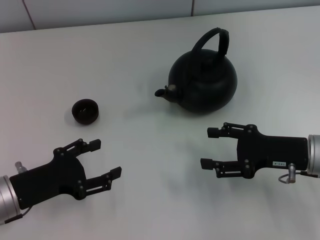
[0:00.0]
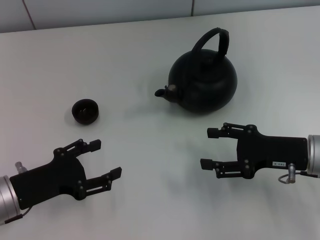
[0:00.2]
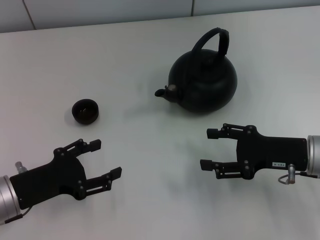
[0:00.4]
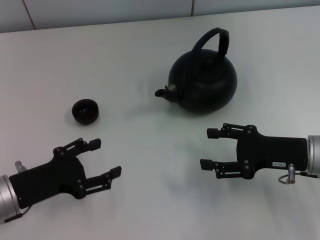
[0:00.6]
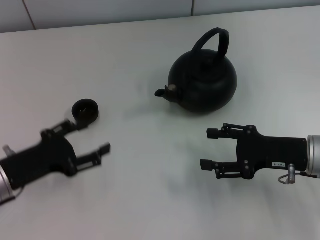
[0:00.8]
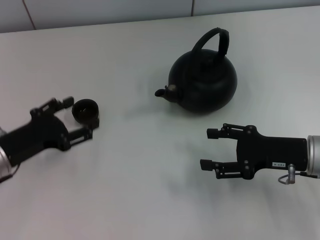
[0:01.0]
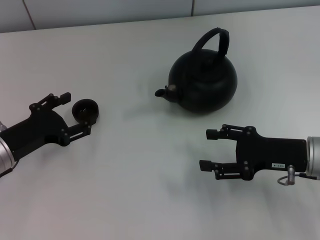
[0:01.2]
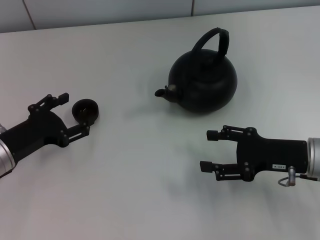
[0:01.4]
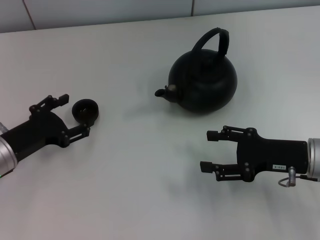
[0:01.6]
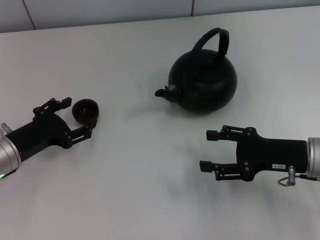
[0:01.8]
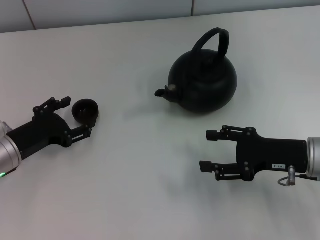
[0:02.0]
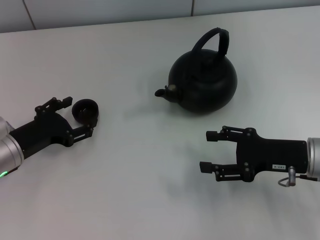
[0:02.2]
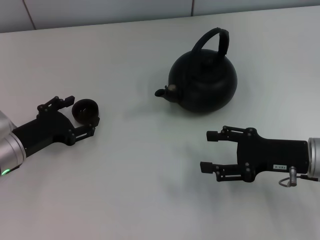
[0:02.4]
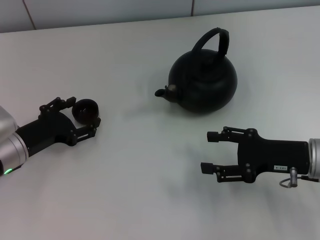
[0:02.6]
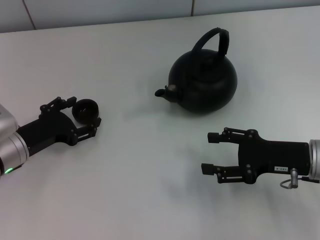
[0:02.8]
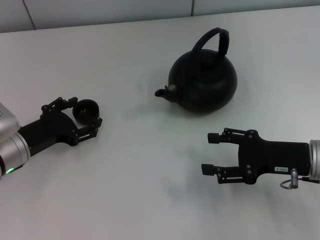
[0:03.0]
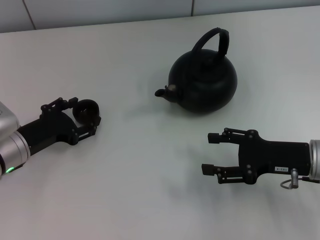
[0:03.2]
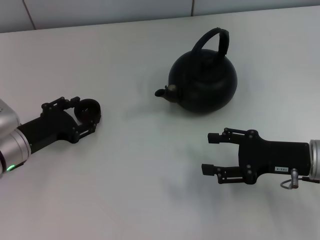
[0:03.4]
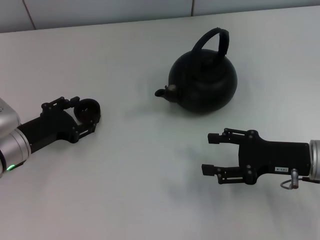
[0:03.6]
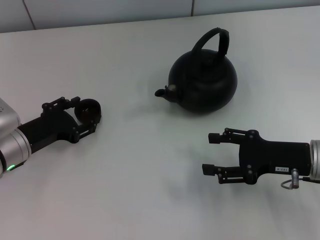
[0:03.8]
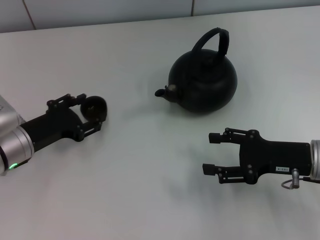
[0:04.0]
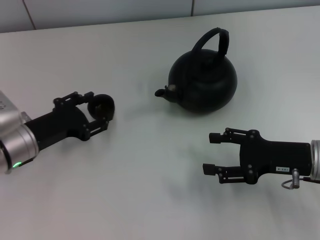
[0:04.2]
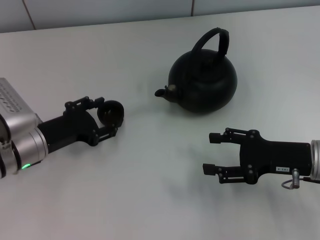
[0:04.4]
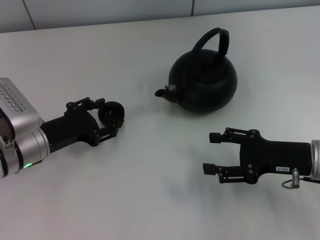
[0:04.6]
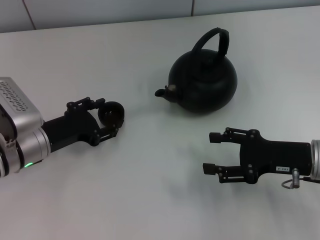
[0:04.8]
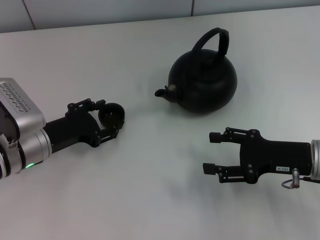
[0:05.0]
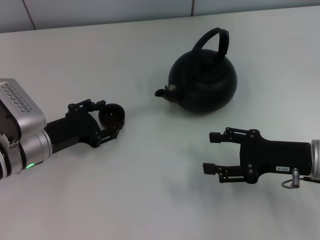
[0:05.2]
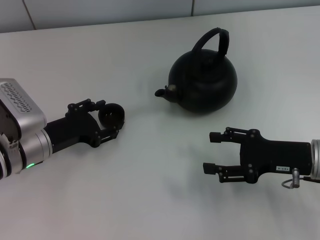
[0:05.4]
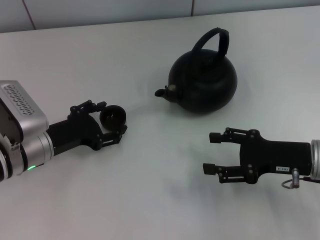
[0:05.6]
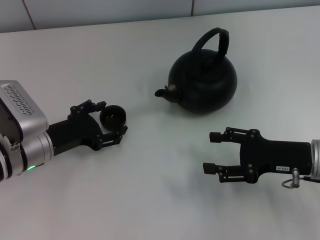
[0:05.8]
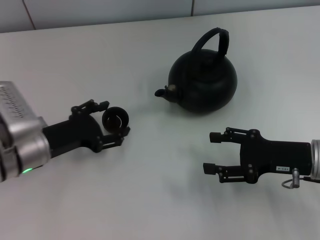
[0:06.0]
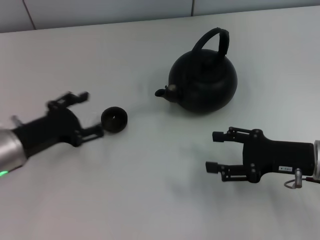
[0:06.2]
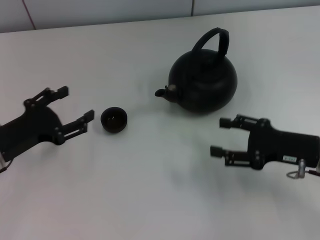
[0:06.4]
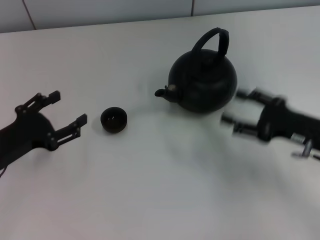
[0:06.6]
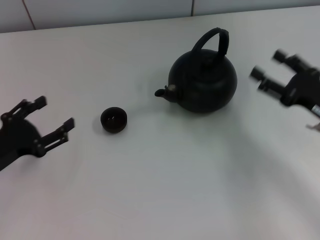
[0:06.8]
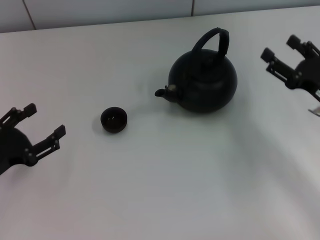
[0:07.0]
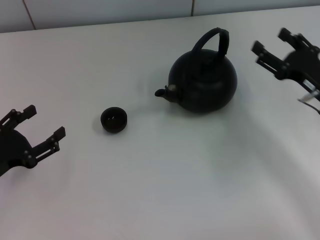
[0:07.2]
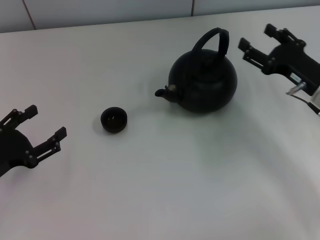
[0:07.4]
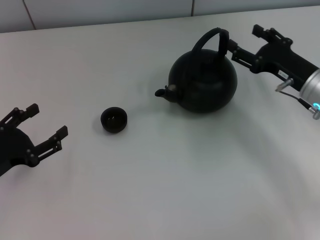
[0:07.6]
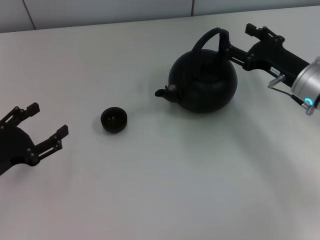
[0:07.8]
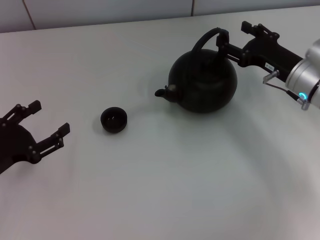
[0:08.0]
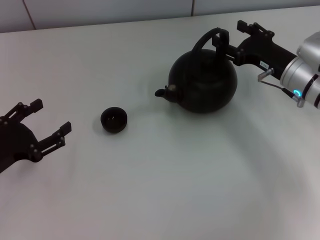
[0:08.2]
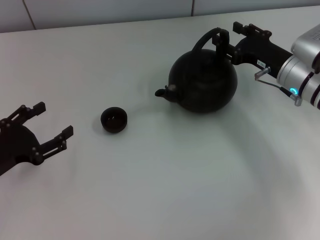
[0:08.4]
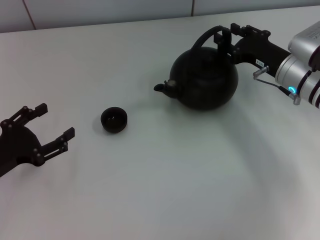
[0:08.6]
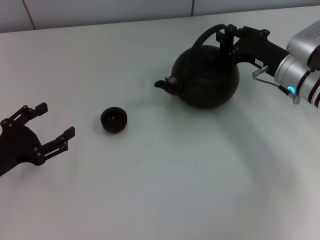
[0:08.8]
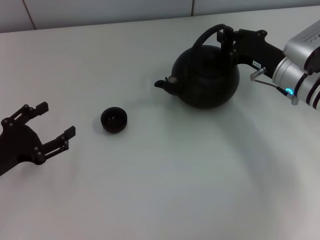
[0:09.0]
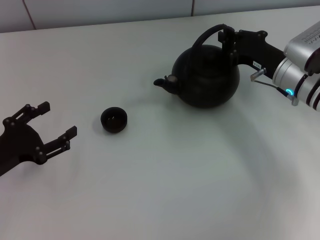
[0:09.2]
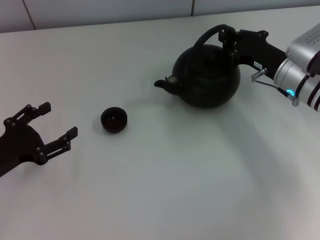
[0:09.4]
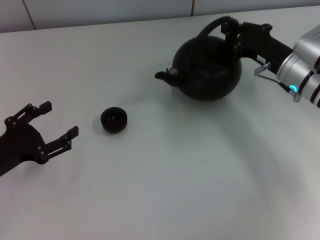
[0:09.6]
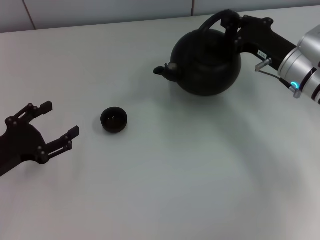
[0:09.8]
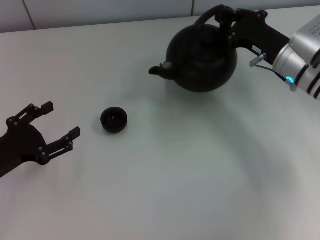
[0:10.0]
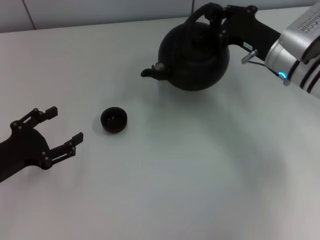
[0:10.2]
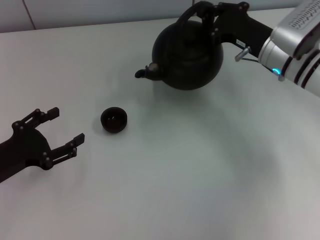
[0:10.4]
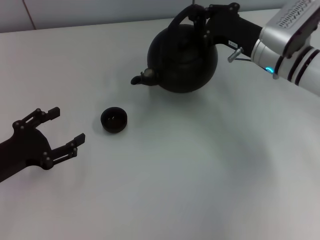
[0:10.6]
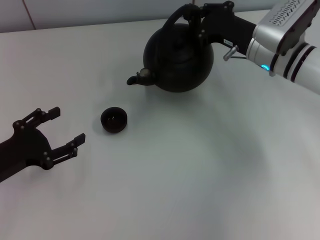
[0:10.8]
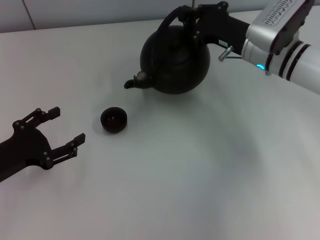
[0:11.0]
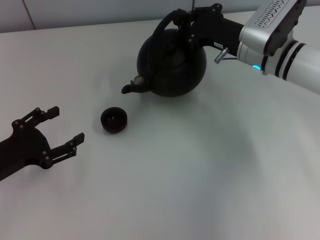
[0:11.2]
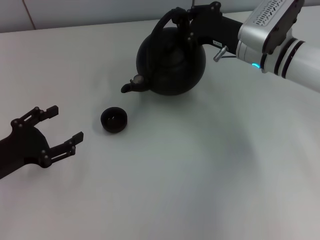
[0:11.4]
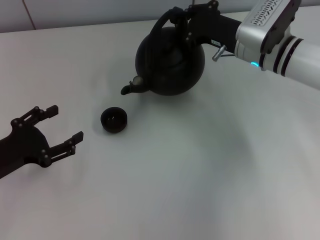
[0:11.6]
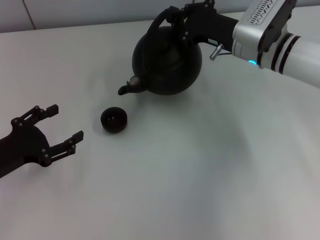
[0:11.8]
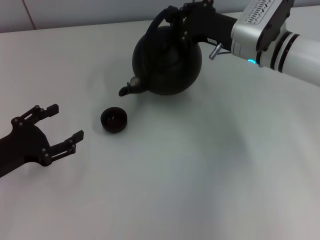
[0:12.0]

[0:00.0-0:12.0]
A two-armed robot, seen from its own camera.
Task of the whole recording: Grasp the handle of the teapot with one hand and pour tea into the teacup.
Step, 0:00.0 to 0:04.0: Pick up the teacup with the left gripper.
Step, 0:04.2 to 0:06.2: Place the teacup in the center of view with the left gripper.
Step, 0:06.6 to 0:10.0: Pick up the teapot with the right gripper.
0:00.0 to 0:01.6: The left gripper shifts approximately 5 cm forward.
0:01.6 to 0:03.0: There are only small adjustments of the grippers.
0:03.0 to 0:04.4: The left gripper closes up.
0:04.4 to 0:06.0: The left gripper opens up.
0:06.0 to 0:07.6: The right gripper travels forward by some 10 cm. Meanwhile the left gripper moves to the left and backward, roughly 10 cm.
0:07.6 to 0:09.0: The right gripper closes up.
0:09.0 to 0:10.4: The right gripper closes.
0:10.4 to 0:12.0: There are only small adjustments of the grippers.

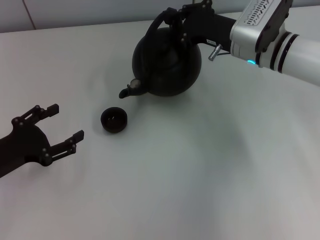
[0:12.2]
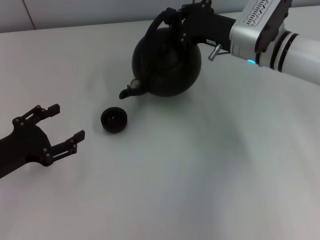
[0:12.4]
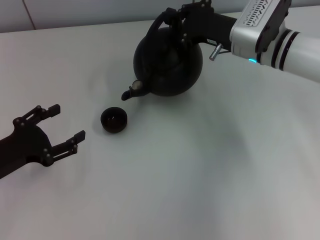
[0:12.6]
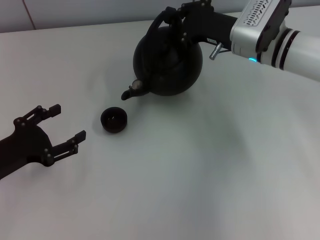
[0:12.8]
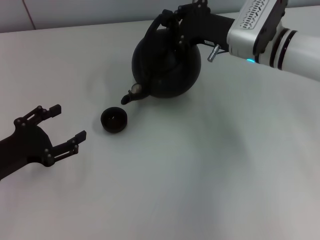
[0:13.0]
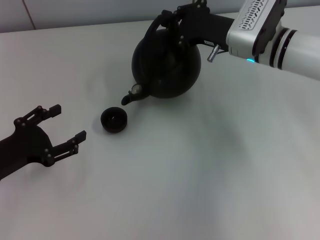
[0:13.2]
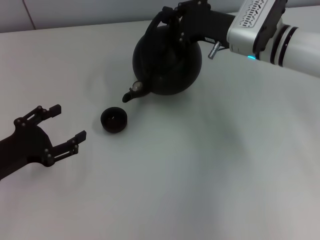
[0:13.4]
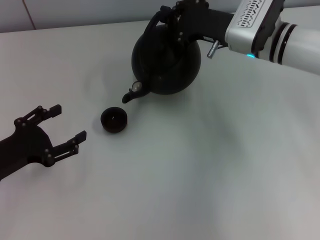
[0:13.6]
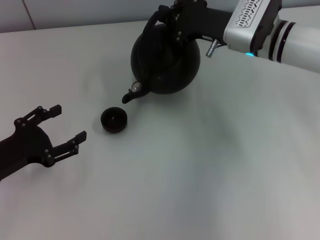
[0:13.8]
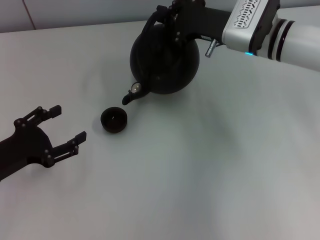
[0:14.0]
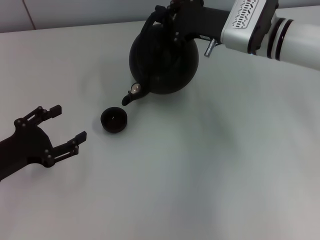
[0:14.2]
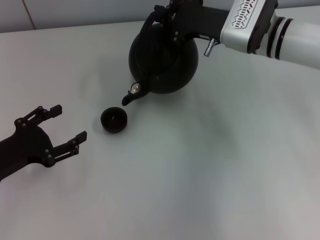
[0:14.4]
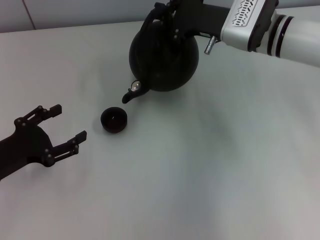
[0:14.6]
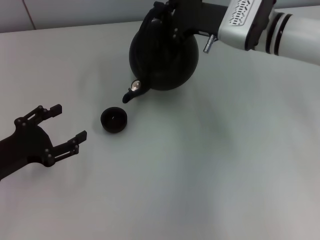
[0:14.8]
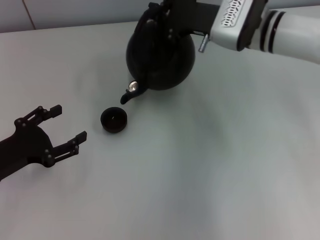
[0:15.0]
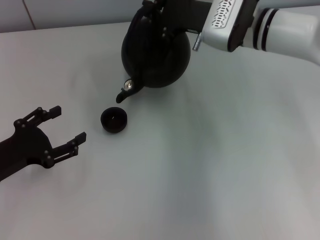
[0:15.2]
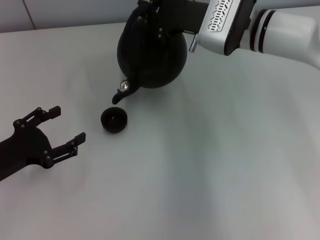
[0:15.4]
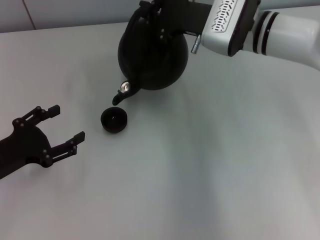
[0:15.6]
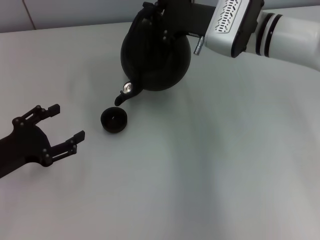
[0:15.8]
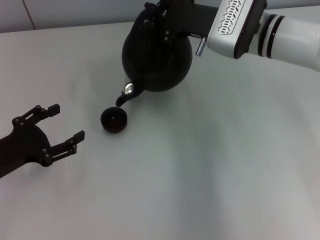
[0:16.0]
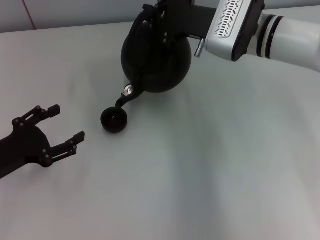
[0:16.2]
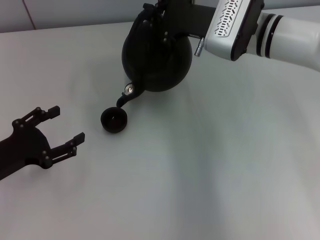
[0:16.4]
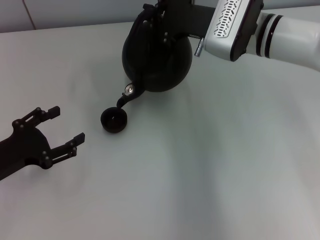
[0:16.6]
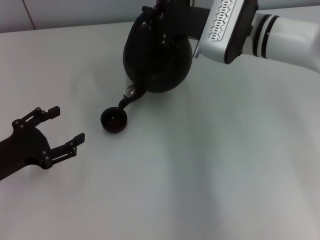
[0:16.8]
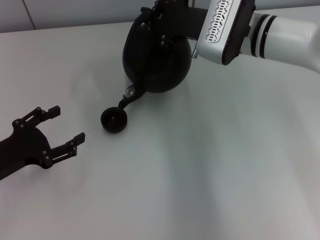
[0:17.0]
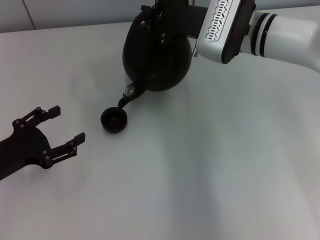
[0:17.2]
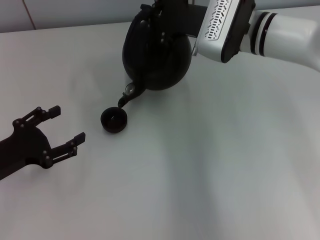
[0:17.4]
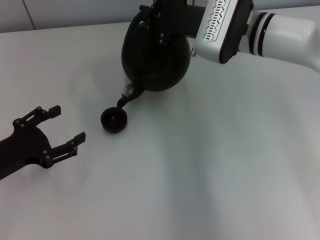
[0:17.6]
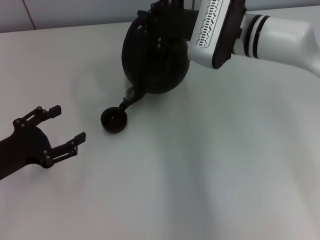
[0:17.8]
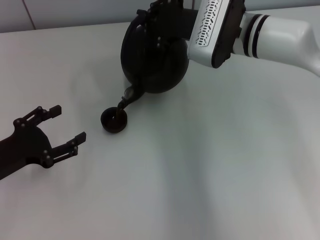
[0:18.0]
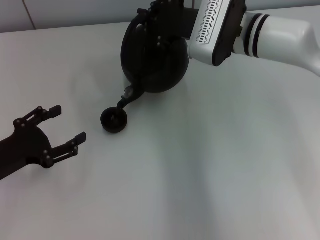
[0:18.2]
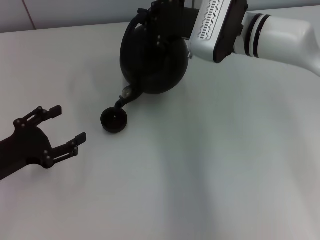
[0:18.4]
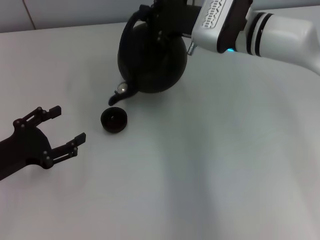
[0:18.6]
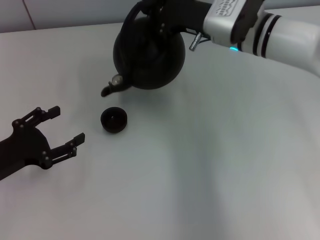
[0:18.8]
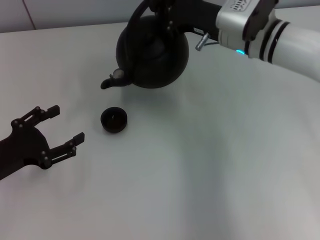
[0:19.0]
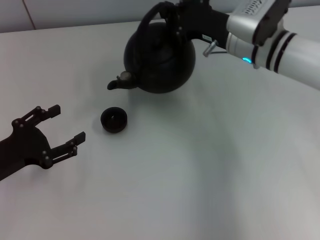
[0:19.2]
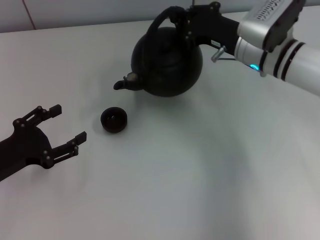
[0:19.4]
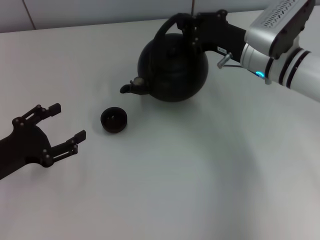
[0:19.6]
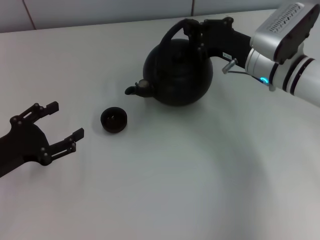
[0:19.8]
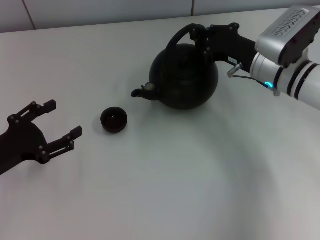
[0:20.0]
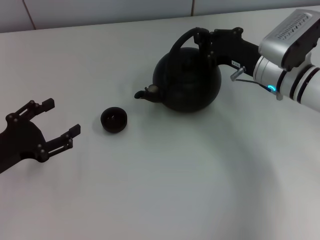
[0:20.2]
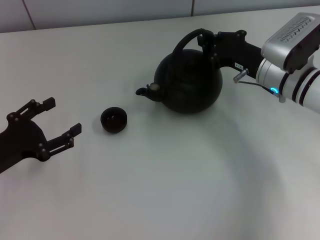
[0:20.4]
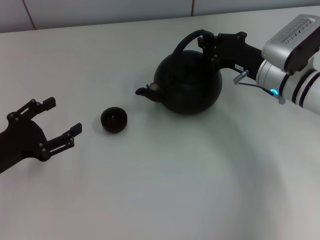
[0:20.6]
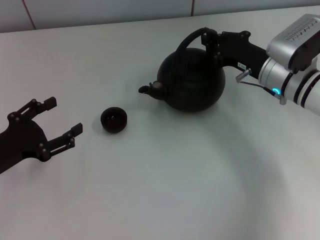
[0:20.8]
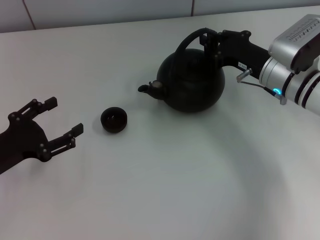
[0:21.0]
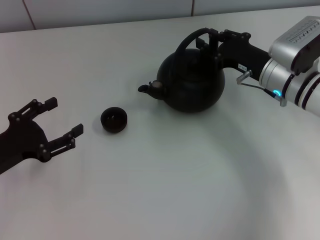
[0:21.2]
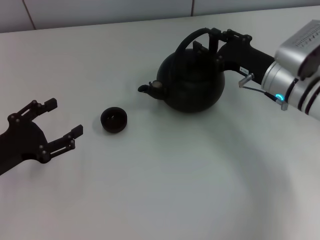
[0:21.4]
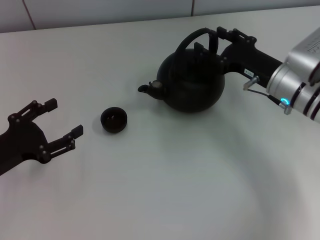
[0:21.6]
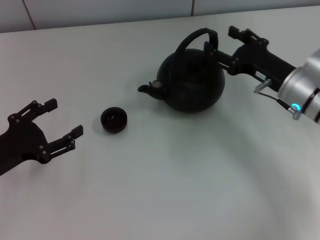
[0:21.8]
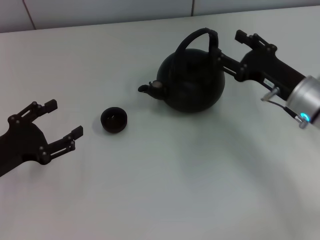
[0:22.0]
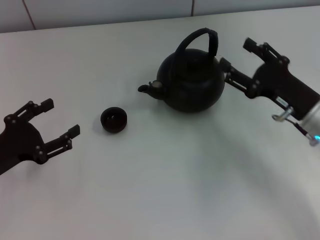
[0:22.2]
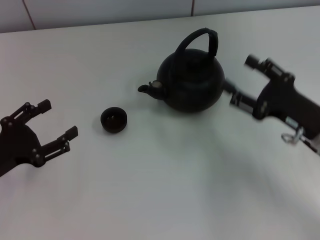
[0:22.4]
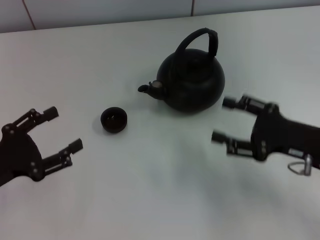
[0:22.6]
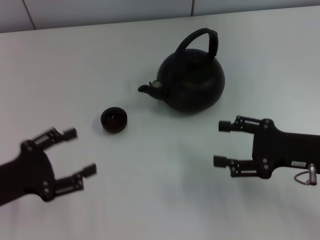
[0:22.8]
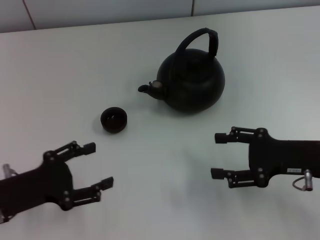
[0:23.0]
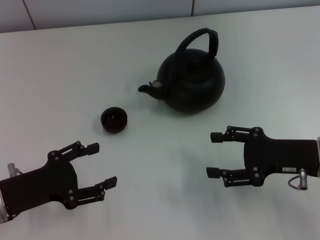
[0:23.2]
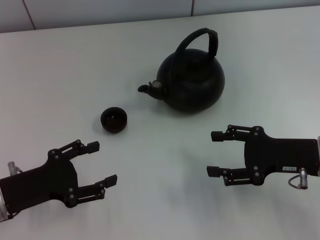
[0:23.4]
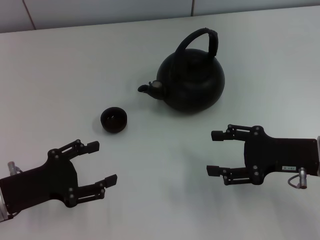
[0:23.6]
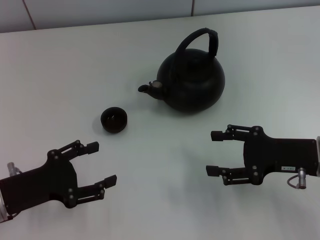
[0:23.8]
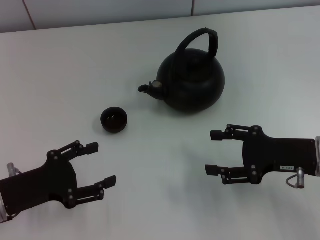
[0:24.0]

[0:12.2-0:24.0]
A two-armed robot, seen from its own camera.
Task of the whole recording: Grasp the handle of the teapot with one hand and pour tea into the teacup.
Step, 0:19.8 to 0:22.4: Put down the teapot with the right gripper.
0:12.2 to 0:16.6: The grippers make only small movements.
0:16.6 to 0:18.2: The grippers move only a little.
0:18.2 to 0:19.6: The right gripper moves to the right, roughly 5 cm.
0:19.6 to 0:21.0: The grippers make only small movements.
0:21.0 to 0:22.6: The right gripper moves backward, approximately 15 cm, and opens up.
0:22.6 to 0:24.0: The grippers stay close to where they were, moving slightly.
